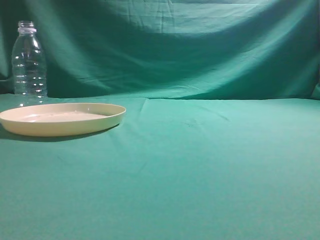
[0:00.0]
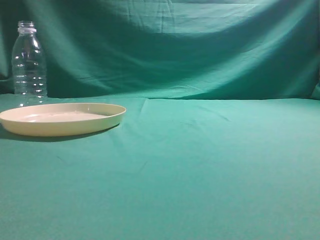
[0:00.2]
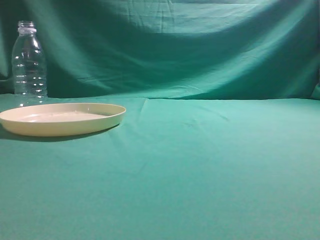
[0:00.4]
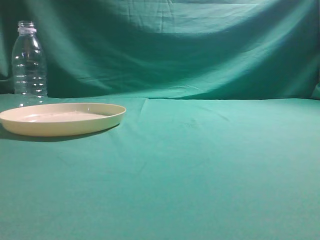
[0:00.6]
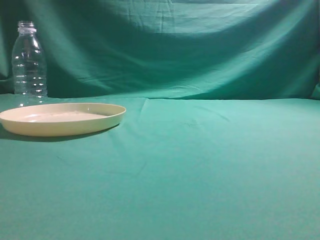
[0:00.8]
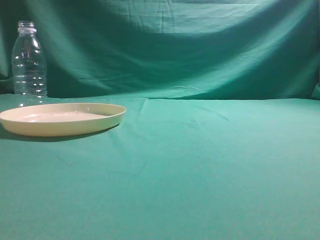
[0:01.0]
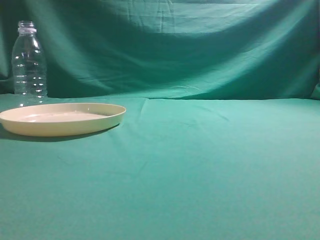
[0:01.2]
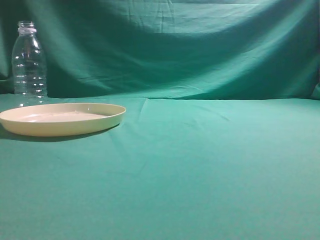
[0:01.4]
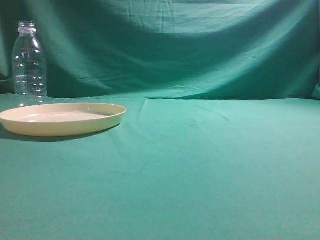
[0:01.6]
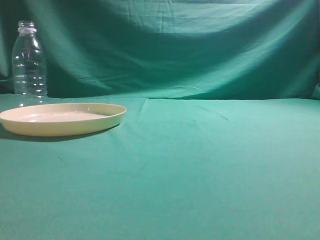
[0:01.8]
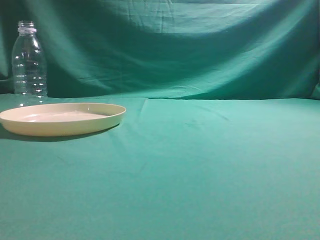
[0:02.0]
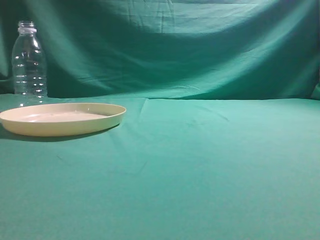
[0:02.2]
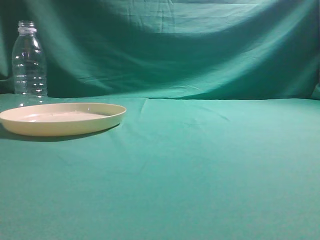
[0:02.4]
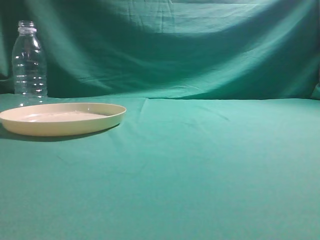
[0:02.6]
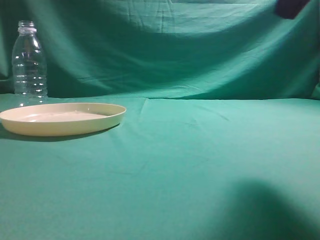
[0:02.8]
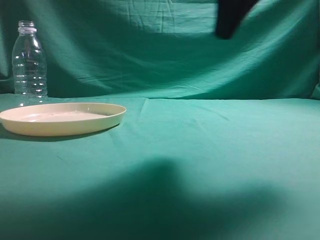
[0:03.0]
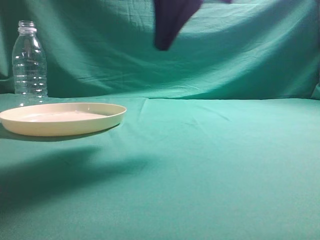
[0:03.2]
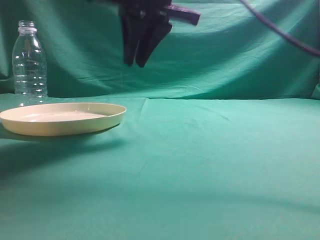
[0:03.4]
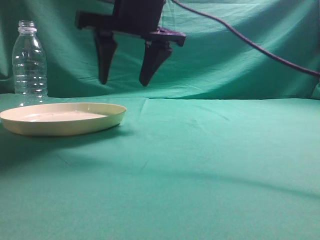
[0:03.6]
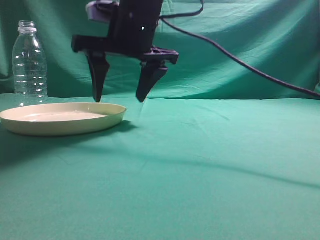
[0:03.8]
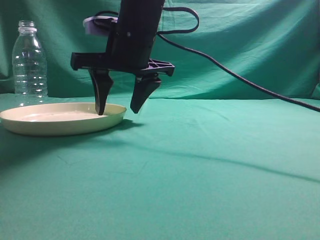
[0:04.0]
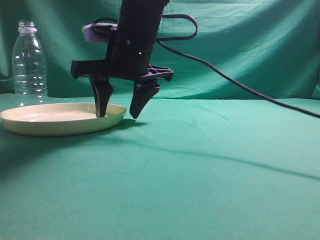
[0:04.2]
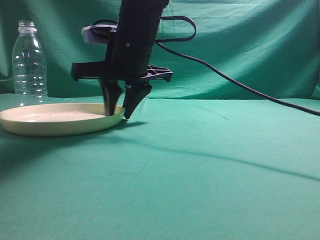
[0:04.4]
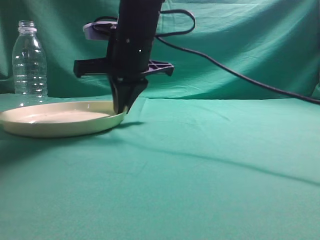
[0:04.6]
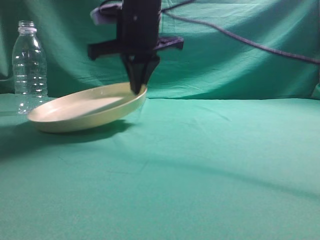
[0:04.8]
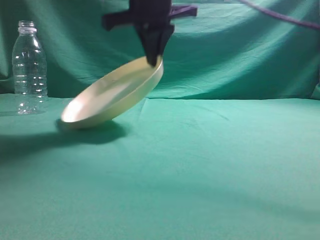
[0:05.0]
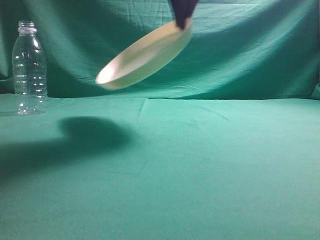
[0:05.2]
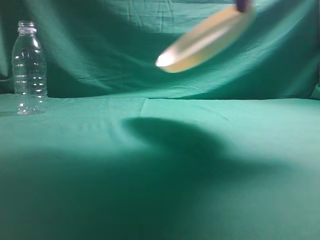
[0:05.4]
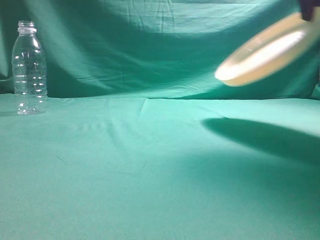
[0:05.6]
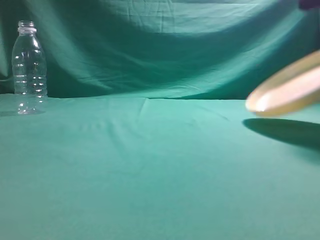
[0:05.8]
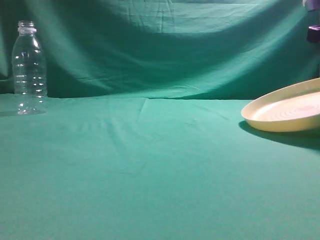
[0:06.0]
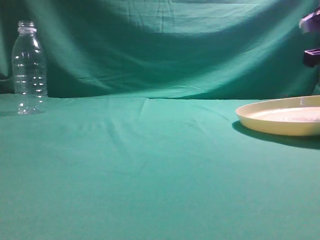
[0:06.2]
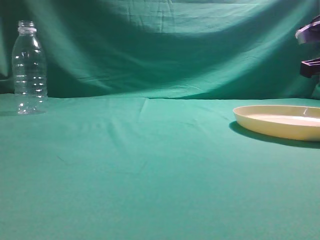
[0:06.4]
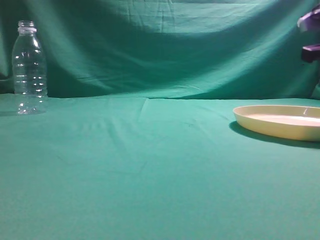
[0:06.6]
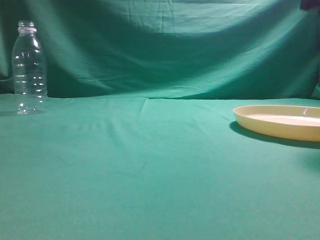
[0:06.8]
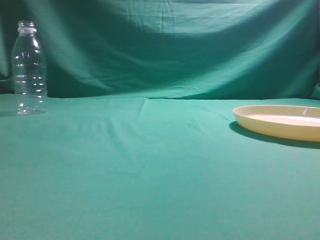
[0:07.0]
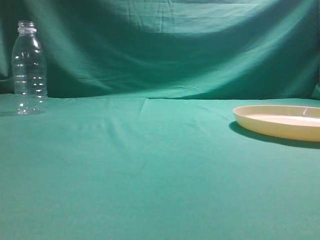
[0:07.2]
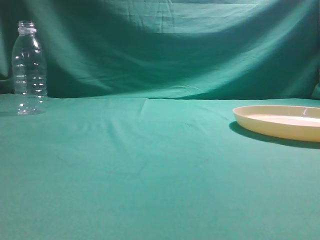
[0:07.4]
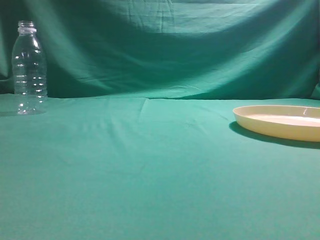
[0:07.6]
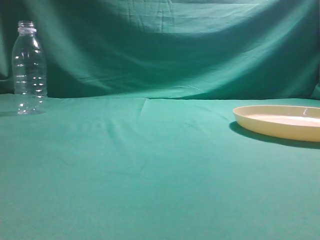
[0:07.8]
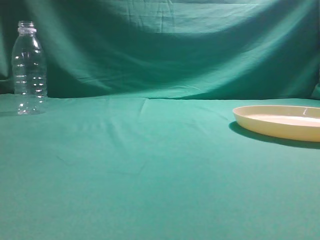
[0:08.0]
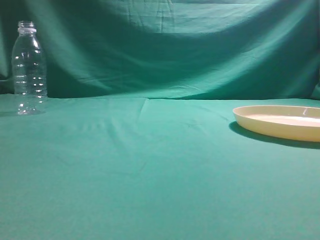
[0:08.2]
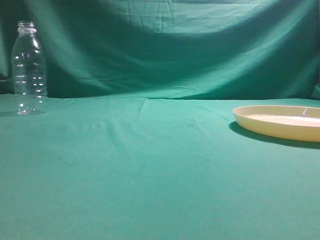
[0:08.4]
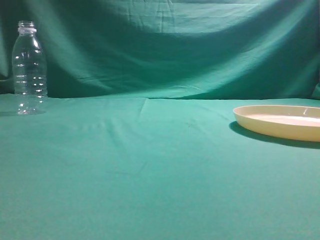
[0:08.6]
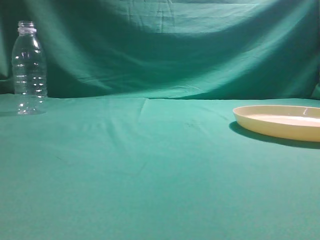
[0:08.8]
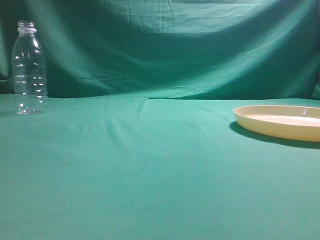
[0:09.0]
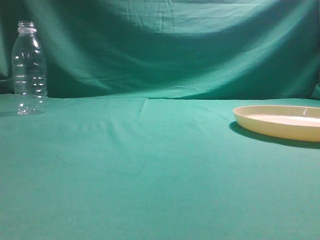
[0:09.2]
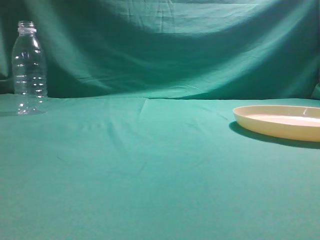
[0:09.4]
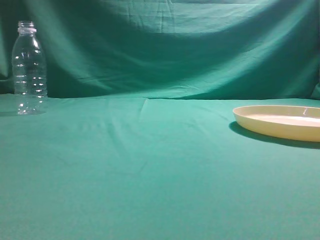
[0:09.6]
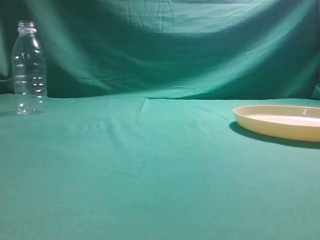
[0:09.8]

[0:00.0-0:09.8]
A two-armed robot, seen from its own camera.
Step, 0:00.0 to 0:05.0: Pick the container that can hold fruits.
Step, 0:05.2 to 0:07.6: Move the picked object to the right side of the table.
0:01.4 to 0:02.8: The right gripper is displaced forward, upward and to the left by some 20 cm.
0:02.8 to 0:04.2: The right gripper travels to the left, forward and downward by about 30 cm, and opens.
0:04.2 to 0:05.6: The right gripper travels to the right and upward by roughly 25 cm, and closes up.
0:05.6 to 0:07.0: The right gripper heads to the right and backward, covering approximately 10 cm, travels downward and back again, about 15 cm each way, and opens up.
